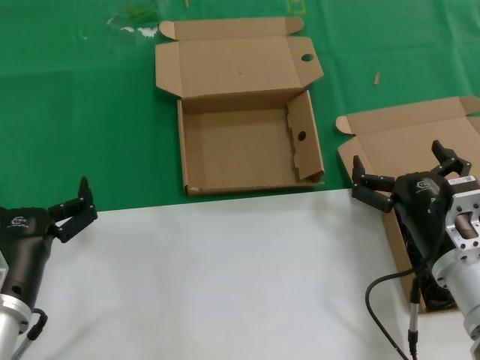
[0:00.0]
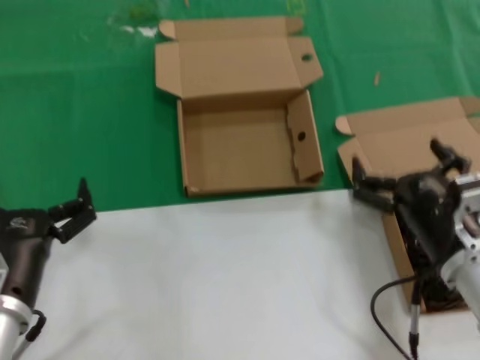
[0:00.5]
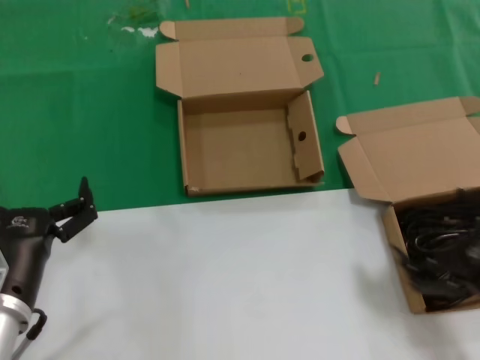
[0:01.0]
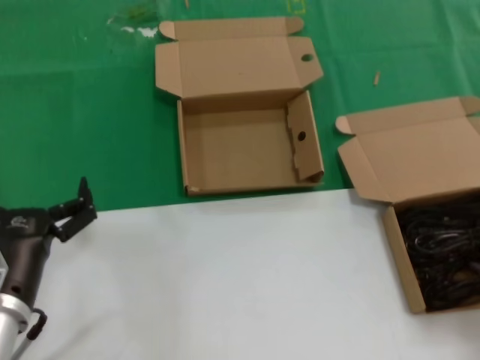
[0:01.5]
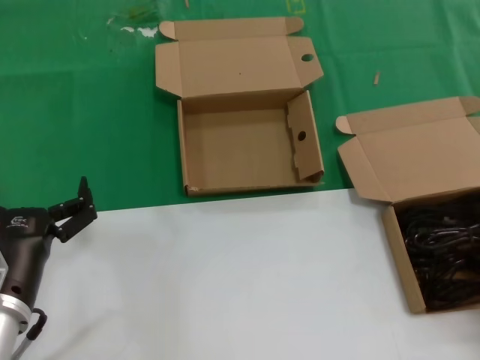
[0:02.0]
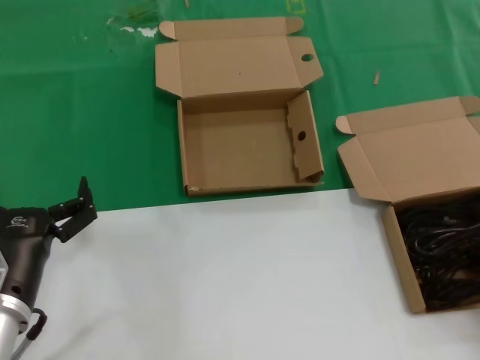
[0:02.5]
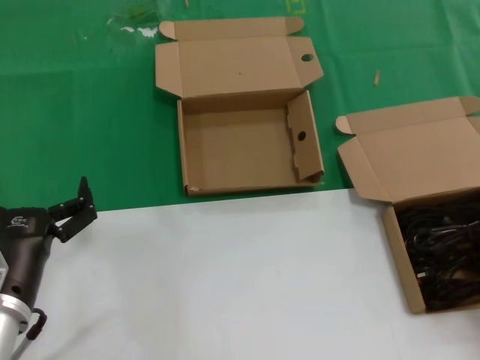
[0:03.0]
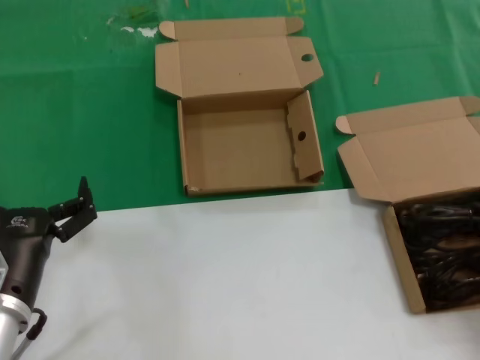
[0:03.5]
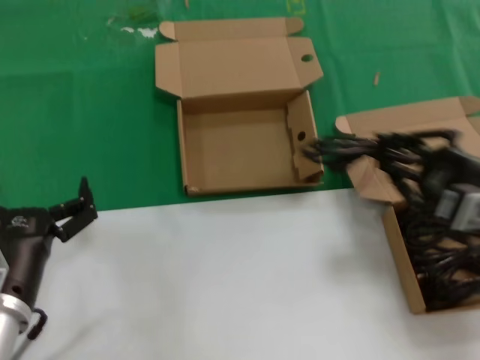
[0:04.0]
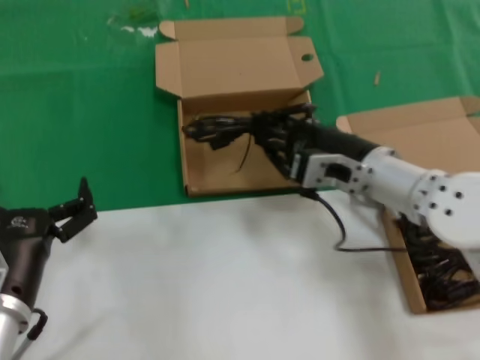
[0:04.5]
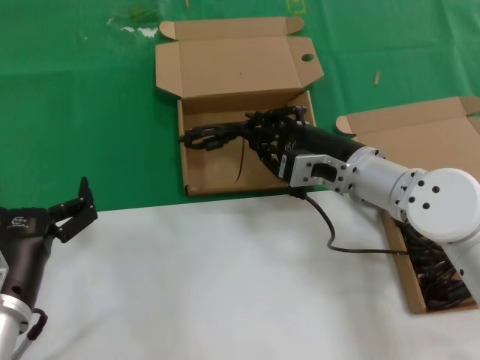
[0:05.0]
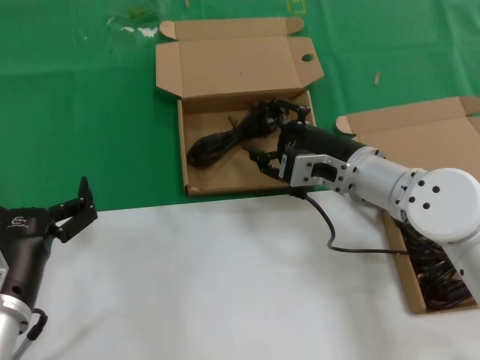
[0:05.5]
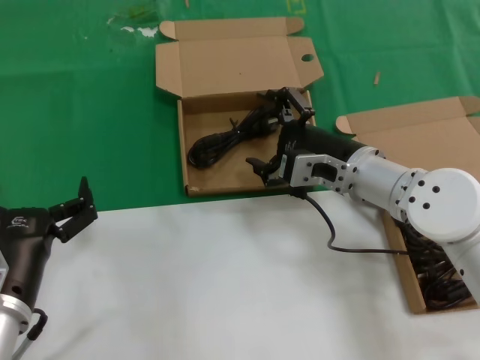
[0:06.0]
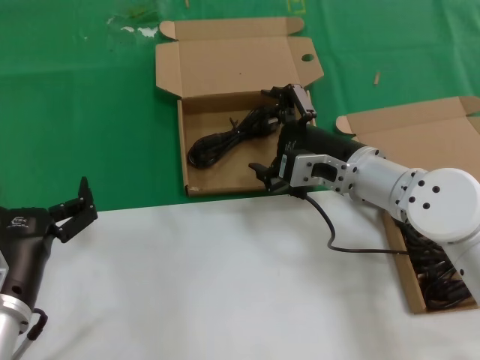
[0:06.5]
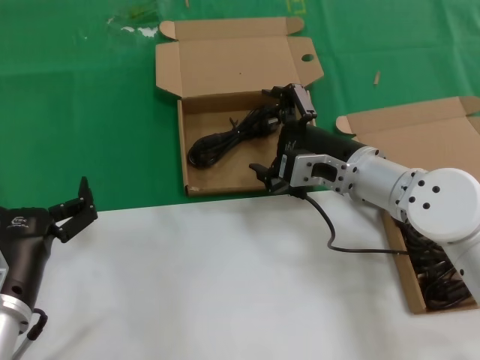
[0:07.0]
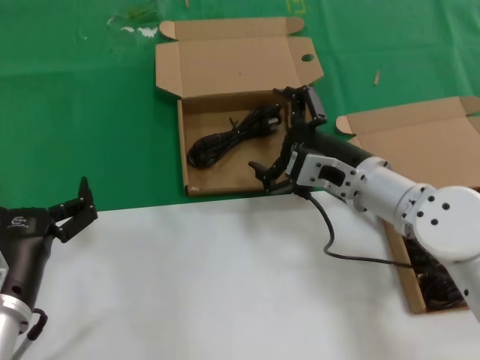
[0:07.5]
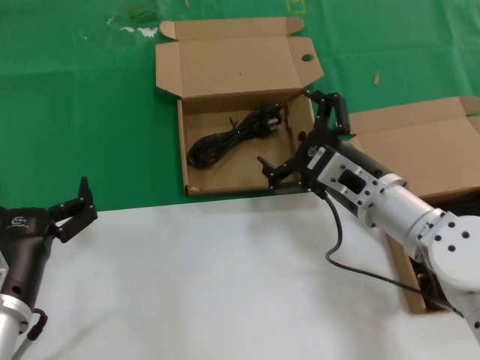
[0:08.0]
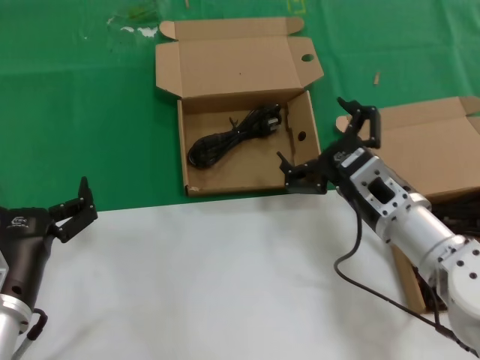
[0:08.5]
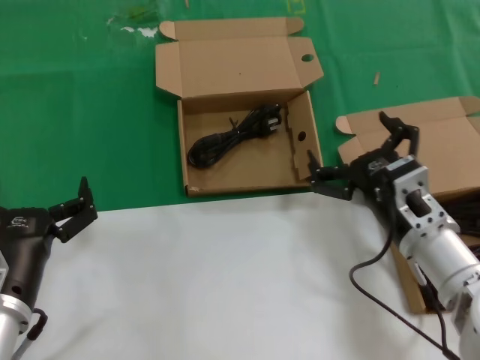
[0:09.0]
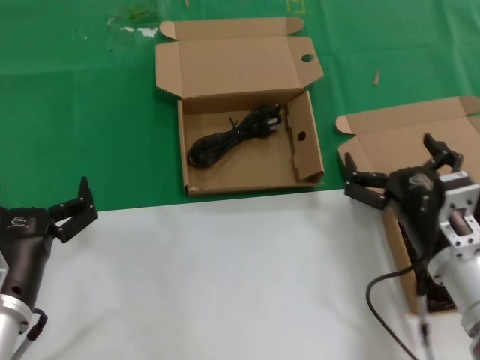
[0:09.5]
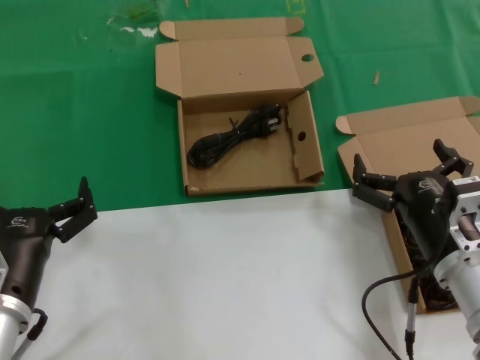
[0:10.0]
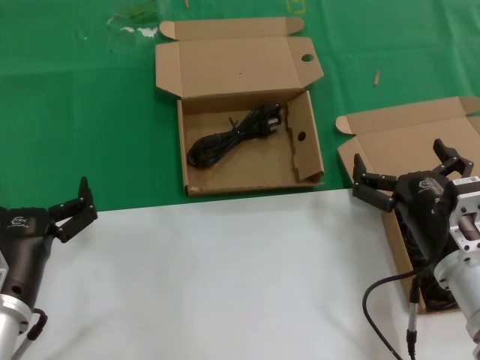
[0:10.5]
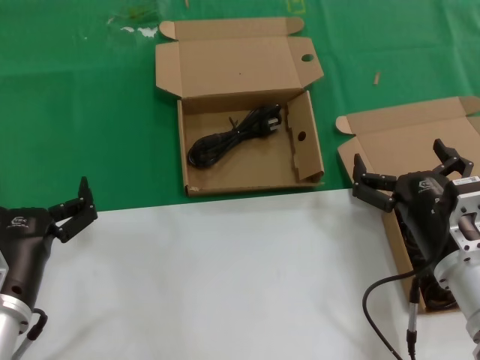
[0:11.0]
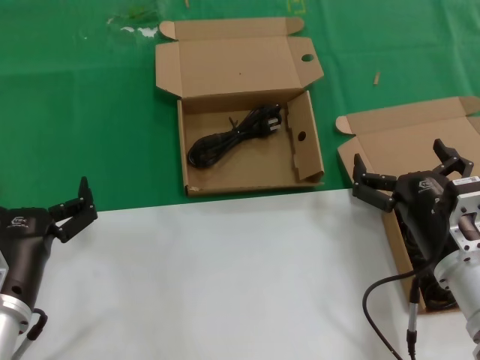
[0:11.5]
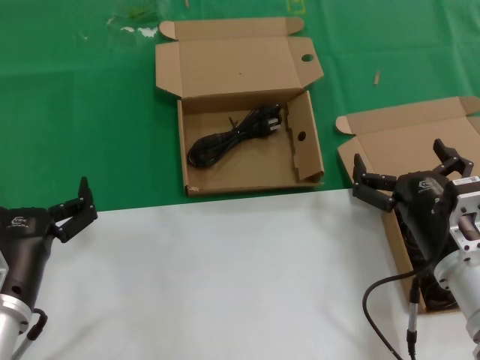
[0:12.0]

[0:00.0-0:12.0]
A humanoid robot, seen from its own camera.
Task of the whole recording: take the parts from the box containing them and put them into an empty box.
Step, 0:00.0 to 0:03.0: Grasp the data cable.
Step, 0:03.5 to 0:06.5: Place the data cable in the another box.
0:00.0 to 0:02.0: The right hand shifts roughly 20 cm to the right.
0:02.0 to 0:04.0: The right hand travels to the left and upward by approximately 10 cm.
0:04.0 to 0:06.0: The right hand is displaced to the left and forward by about 20 cm.
0:08.0 to 0:10.0: The right hand goes some 10 cm backward and to the right.
0:10.0 to 0:12.0: Neither hand changes place.

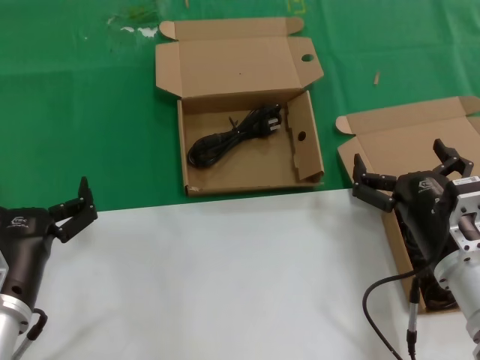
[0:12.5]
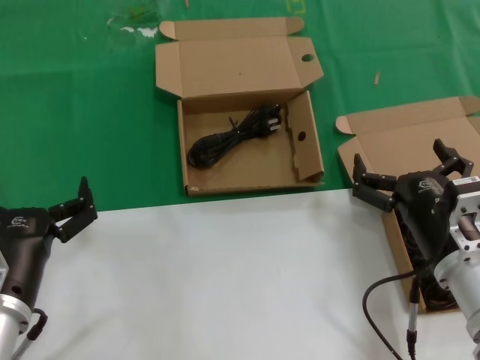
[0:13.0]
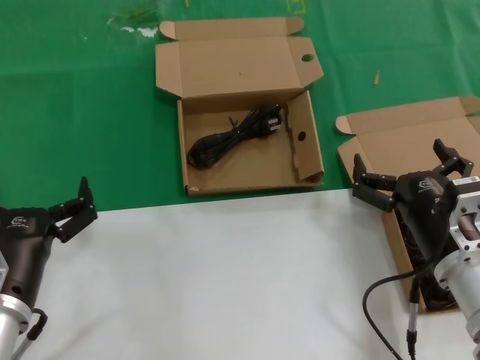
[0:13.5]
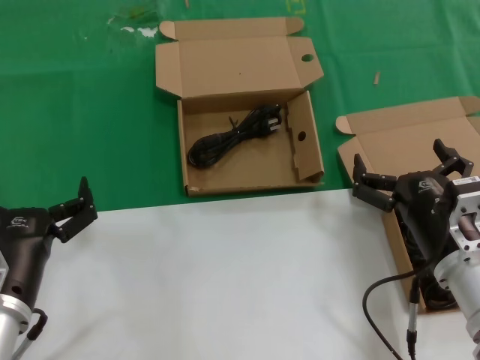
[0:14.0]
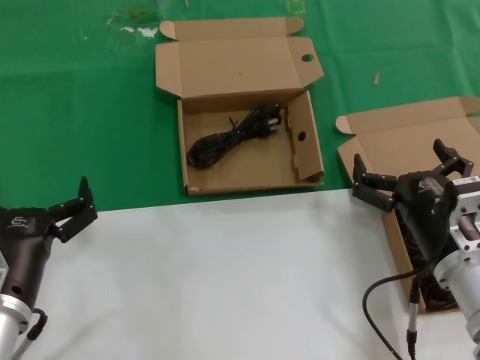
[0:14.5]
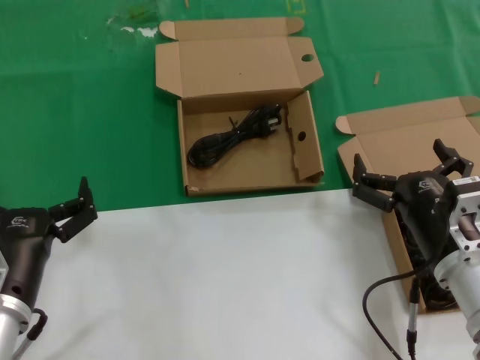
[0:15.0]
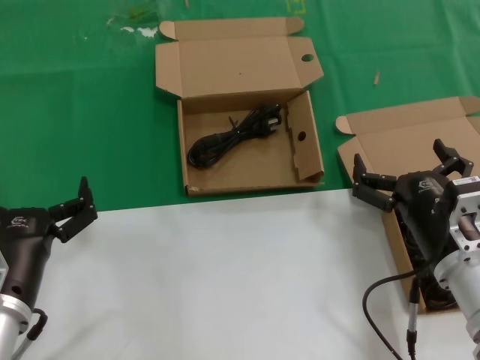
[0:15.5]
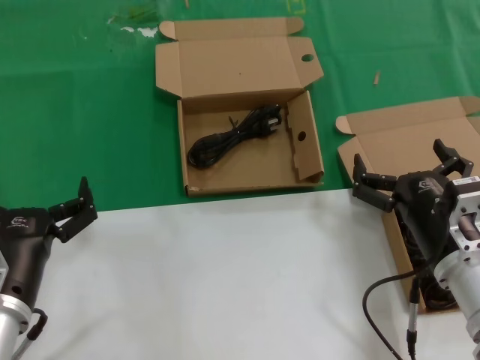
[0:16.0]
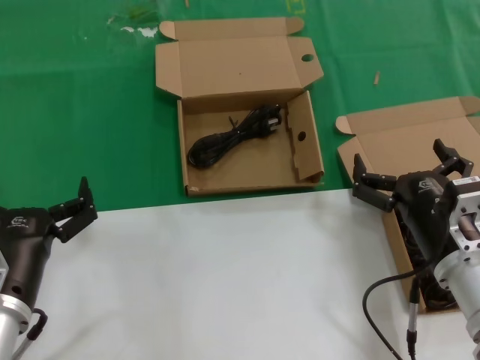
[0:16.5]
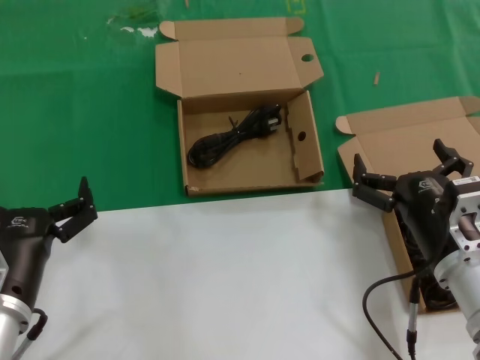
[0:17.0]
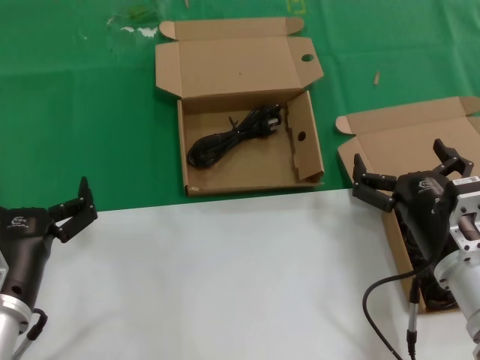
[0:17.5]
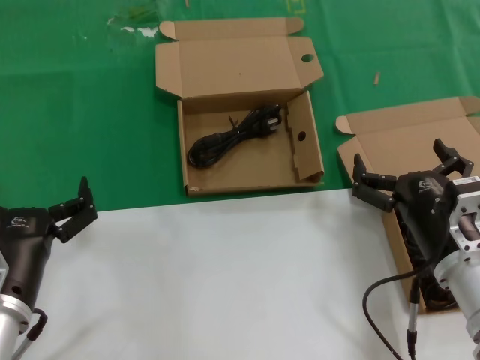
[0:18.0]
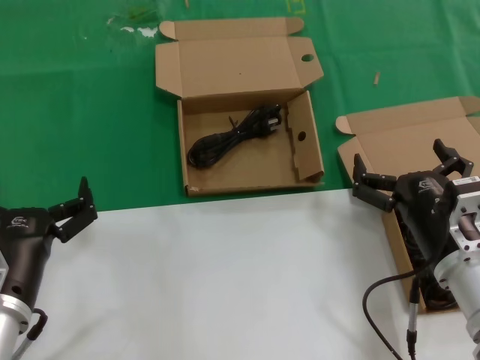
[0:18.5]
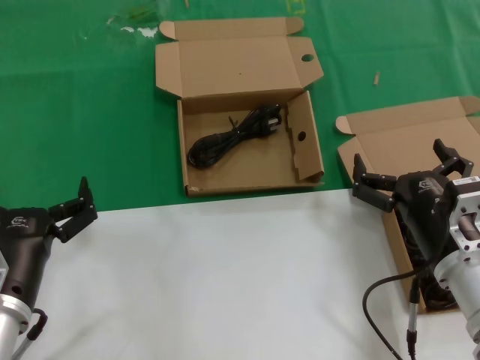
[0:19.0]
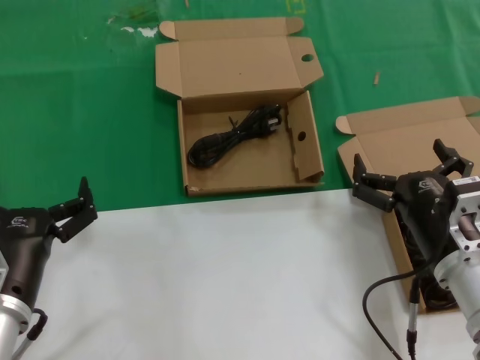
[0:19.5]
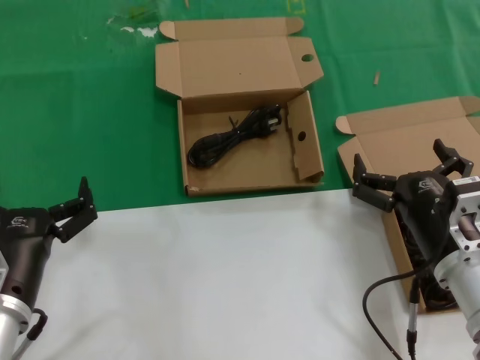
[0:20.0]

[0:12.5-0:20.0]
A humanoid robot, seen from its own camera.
Task of the whole recording: take the parts from the box containing them and put them into an empty box.
0:12.5 to 0:20.0: Neither hand changes place.

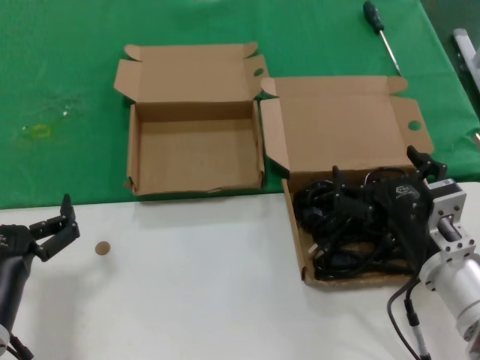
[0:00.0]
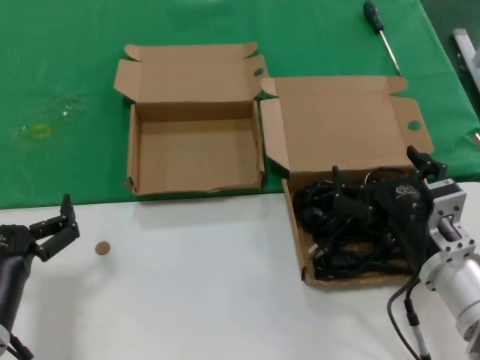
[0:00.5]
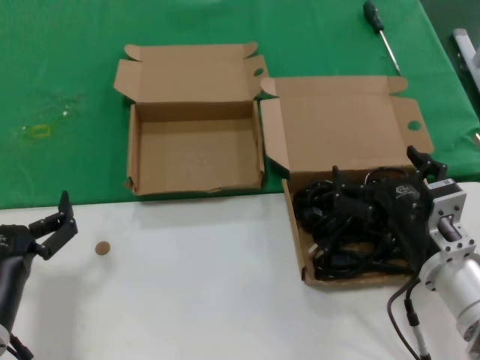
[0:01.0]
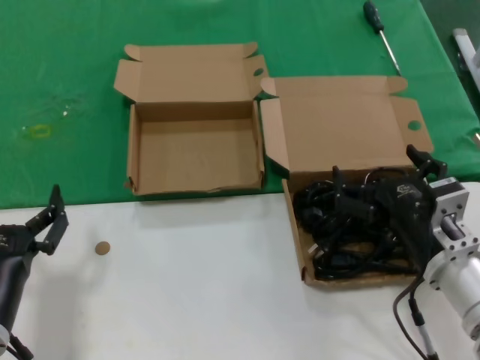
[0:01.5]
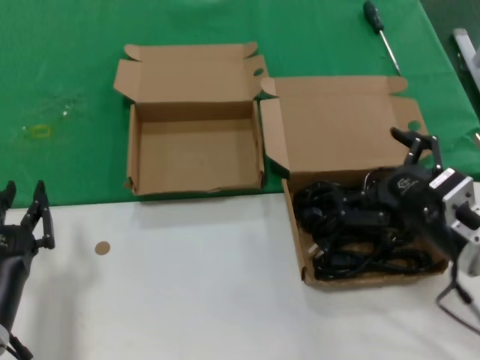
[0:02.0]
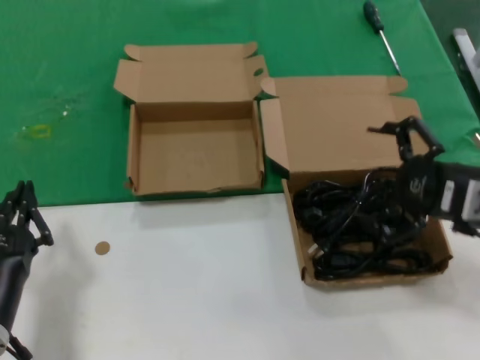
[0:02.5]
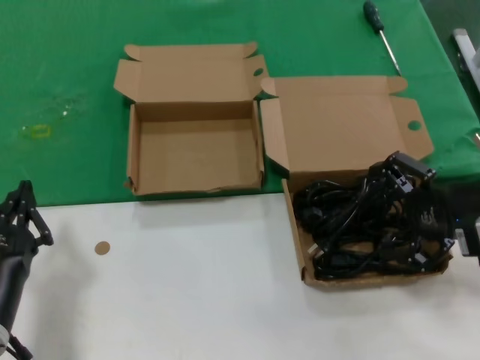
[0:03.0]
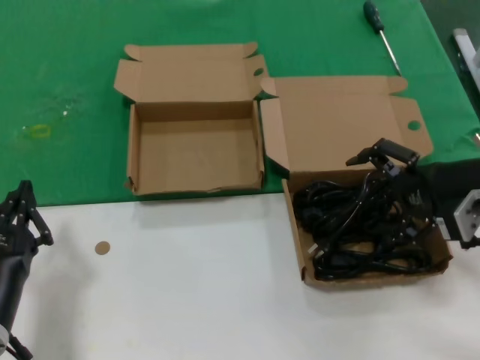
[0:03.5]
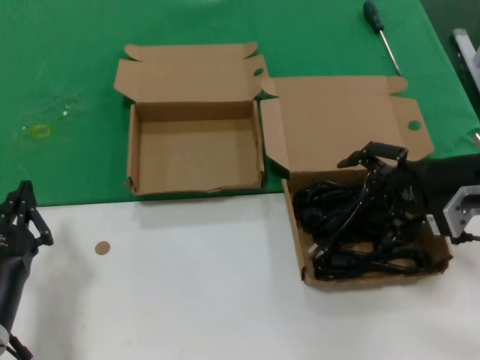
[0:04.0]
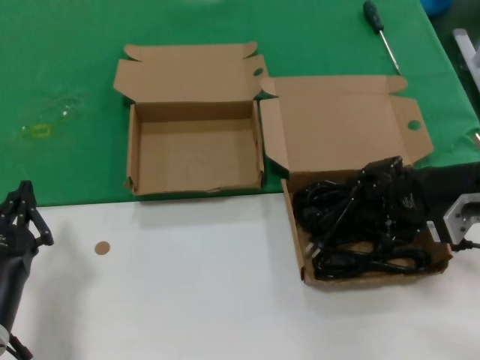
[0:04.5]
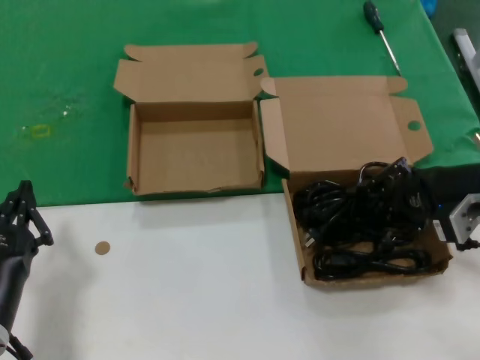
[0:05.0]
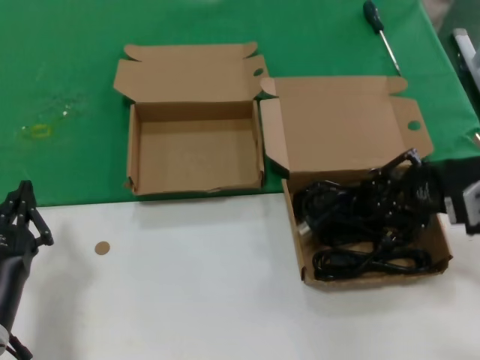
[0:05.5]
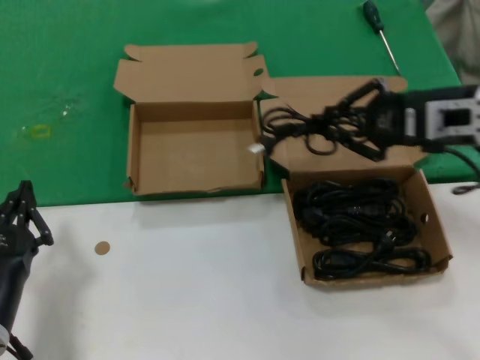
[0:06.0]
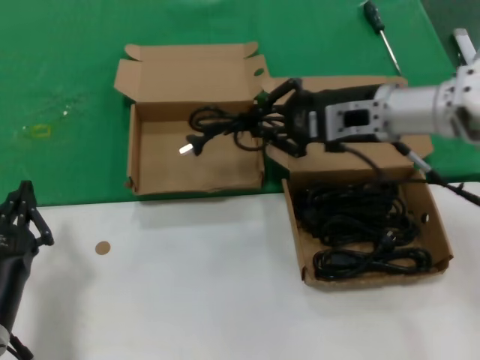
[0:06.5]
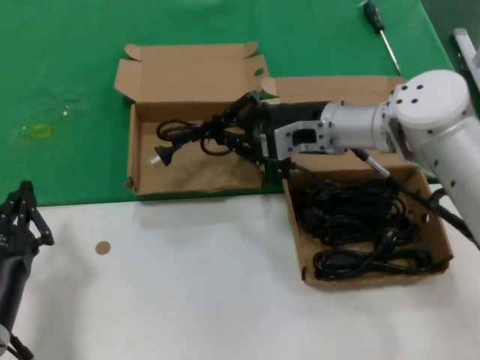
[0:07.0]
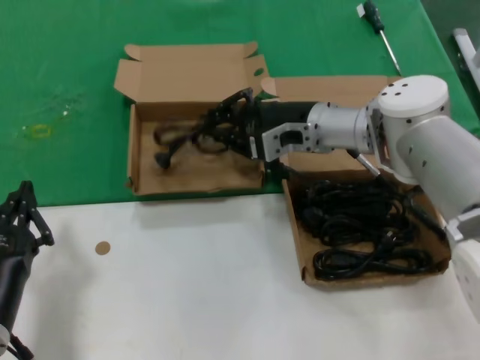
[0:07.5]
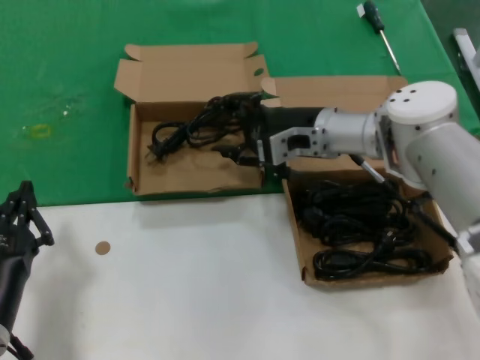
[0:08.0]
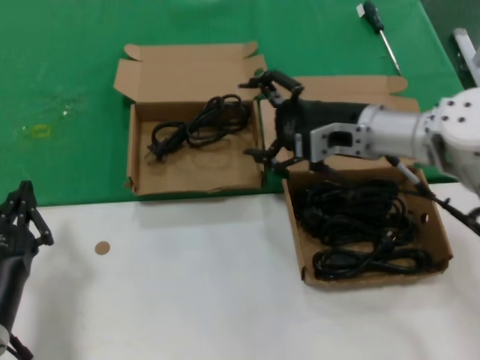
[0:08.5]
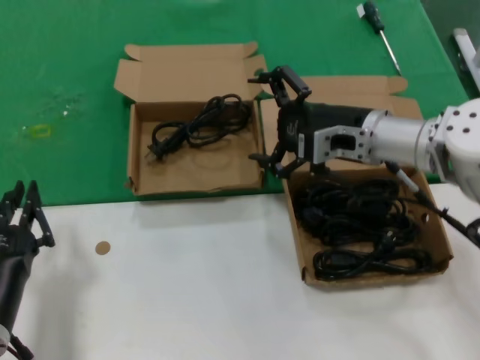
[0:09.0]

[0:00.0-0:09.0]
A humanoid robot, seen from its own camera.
Task of the whole recording: take the parts from the box containing them and put them into an empty box.
Step, 0:00.0 to 0:04.5: Grasp the data cable.
Step, 0:05.0 to 0:07.5: Place the data cable in the another box.
0:00.0 to 0:02.0: The right hand changes place by some 5 cm.
0:02.0 to 0:04.5: The right hand travels forward, to the right and upward by approximately 15 cm.
0:04.5 to 0:07.0: The right hand shifts about 20 cm to the left and forward.
0:07.0 to 0:09.0: The right hand moves approximately 5 cm.
